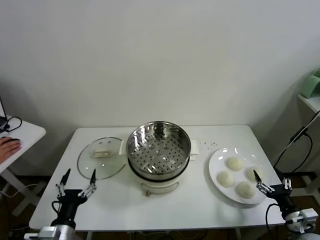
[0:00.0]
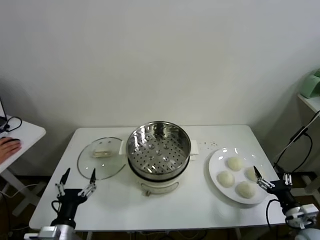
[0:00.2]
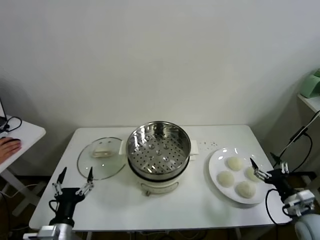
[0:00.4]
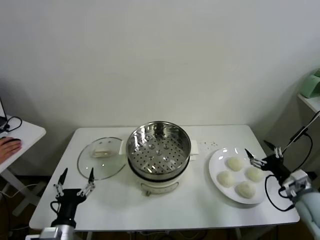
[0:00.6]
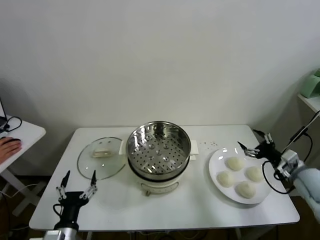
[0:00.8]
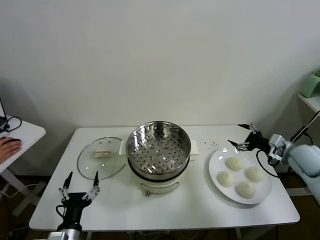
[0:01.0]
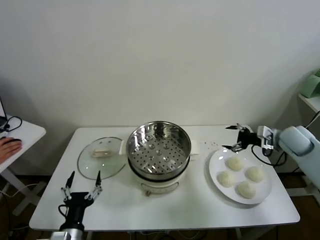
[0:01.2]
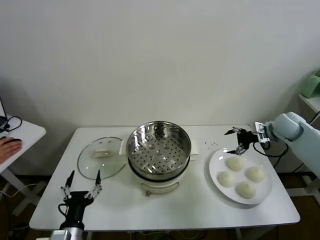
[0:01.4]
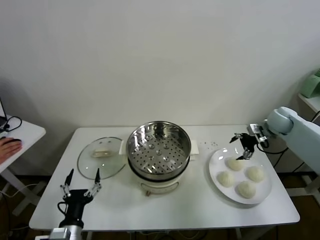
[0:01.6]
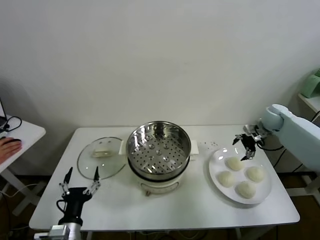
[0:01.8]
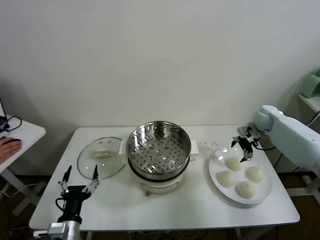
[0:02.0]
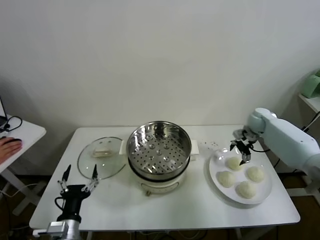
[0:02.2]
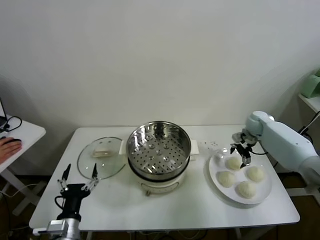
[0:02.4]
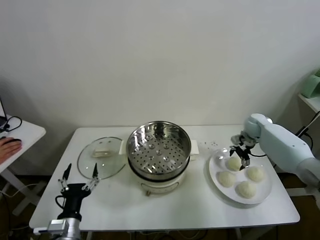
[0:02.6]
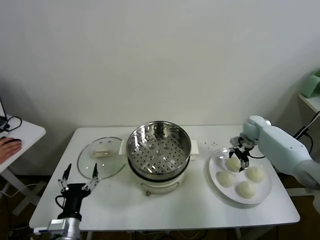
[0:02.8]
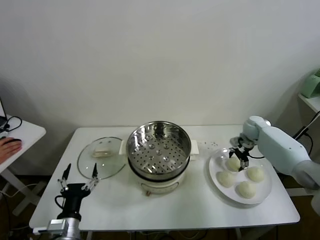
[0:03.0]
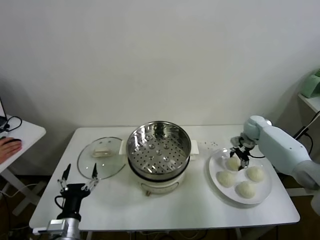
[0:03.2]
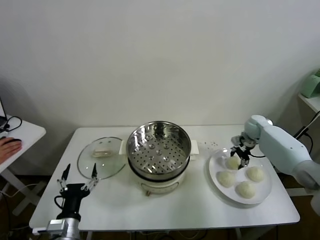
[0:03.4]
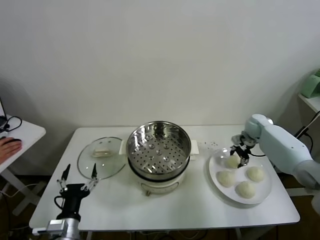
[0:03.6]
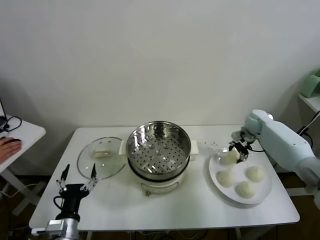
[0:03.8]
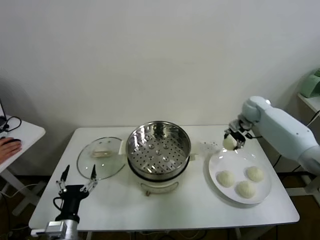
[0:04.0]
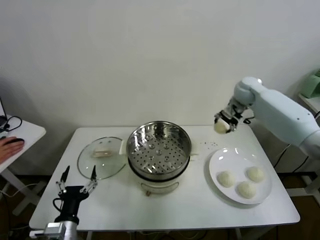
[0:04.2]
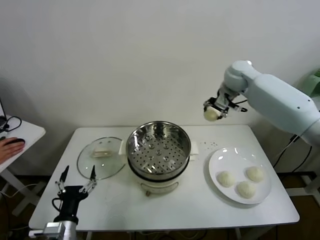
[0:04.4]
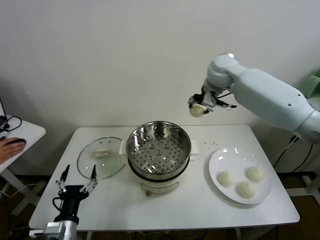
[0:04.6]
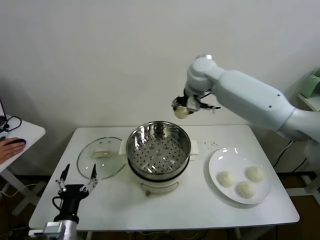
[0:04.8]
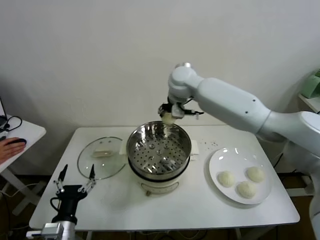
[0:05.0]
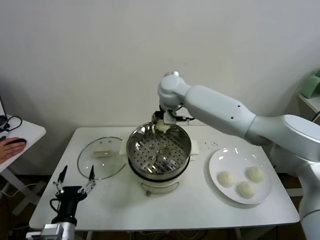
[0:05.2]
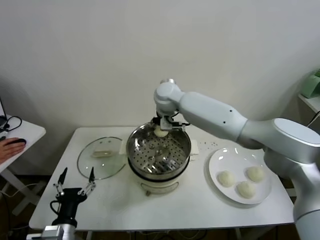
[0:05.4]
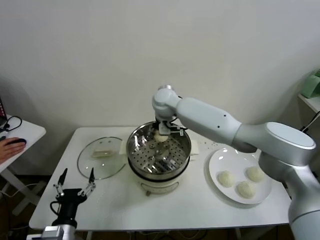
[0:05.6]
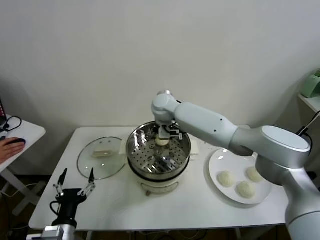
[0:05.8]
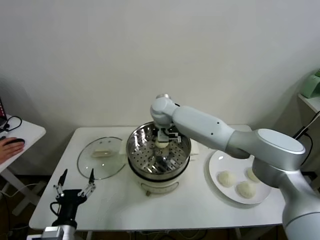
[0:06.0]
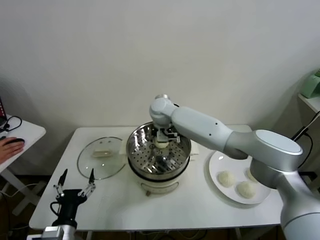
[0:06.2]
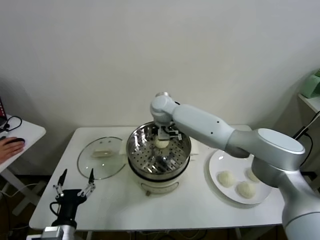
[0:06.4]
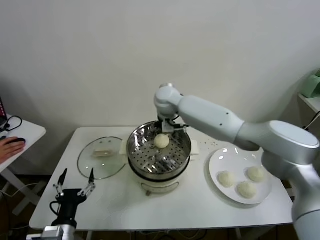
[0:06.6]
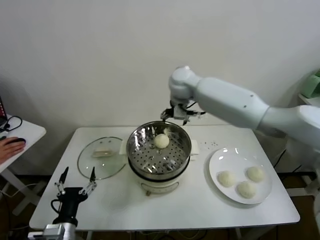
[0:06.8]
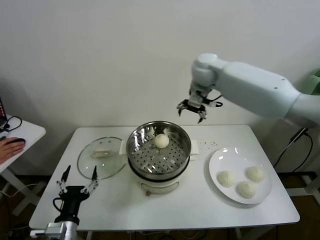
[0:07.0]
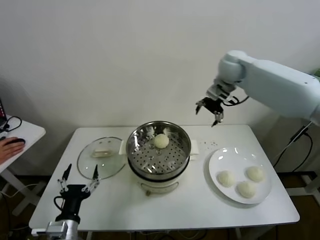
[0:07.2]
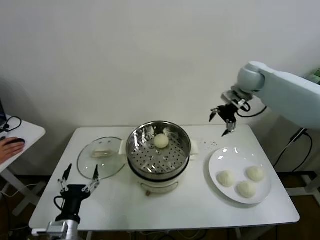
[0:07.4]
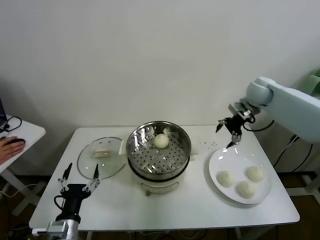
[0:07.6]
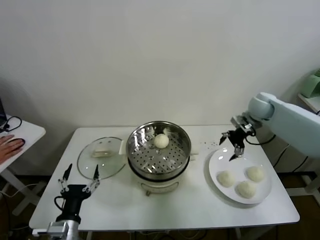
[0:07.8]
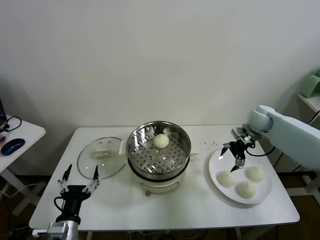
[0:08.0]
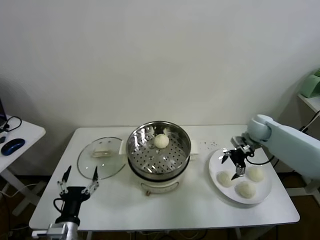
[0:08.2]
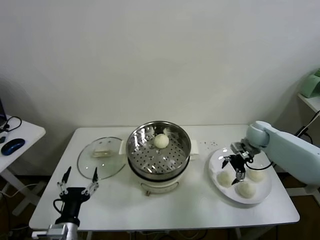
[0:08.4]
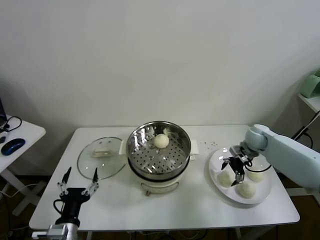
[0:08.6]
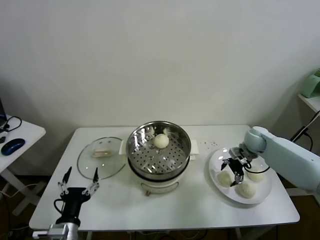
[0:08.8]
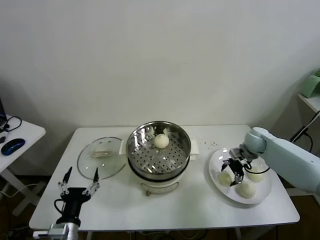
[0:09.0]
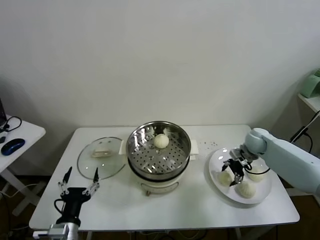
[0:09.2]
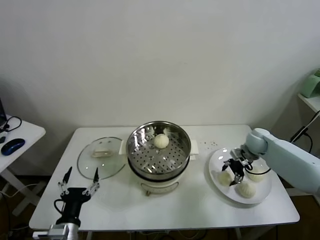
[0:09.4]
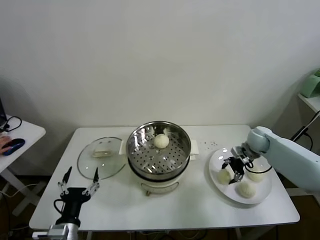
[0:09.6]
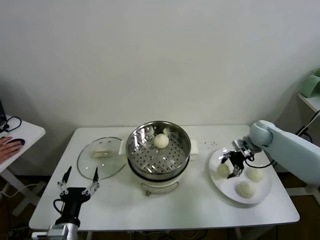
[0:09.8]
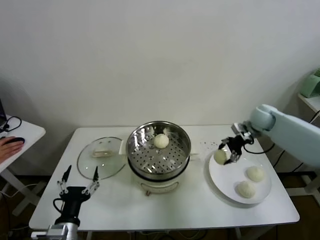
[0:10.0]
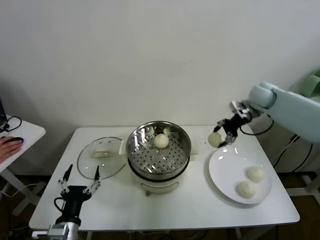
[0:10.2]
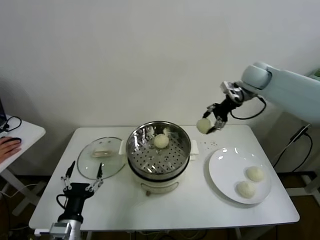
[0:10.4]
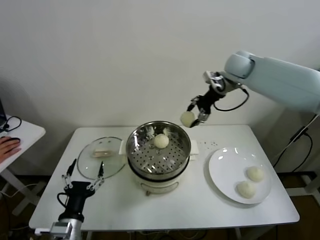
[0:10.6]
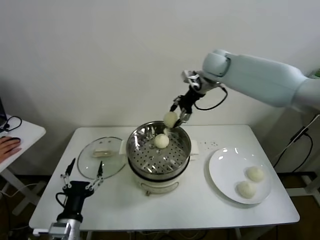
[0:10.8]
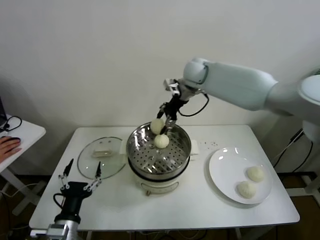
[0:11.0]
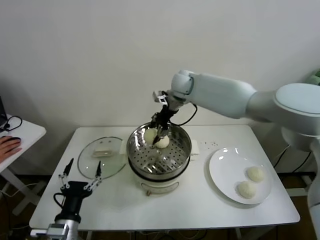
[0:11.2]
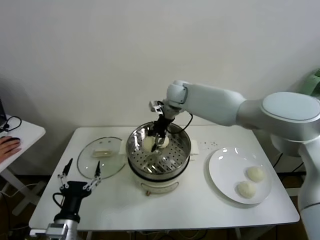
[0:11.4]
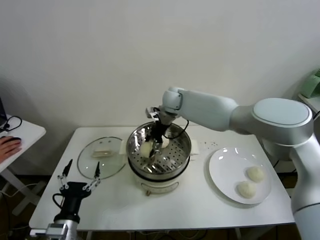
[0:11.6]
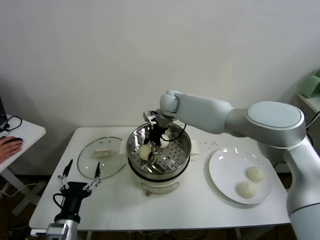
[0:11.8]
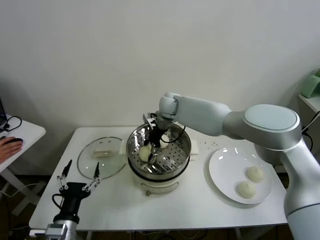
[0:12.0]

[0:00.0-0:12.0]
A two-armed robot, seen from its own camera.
Task of the whole recording: take steamed baozi put them in steamer.
Step, 0.0 to 3.0 s: Grasp the baozi in the plate with right gripper.
Step, 3.2 to 6.2 s: Place the baozi on the steamer with right gripper.
Step, 6.4 to 9.0 s: Grasp the baozi in the plate with right gripper.
1.6 to 3.0 s: The right gripper shifts about 10 cm downward.
3.0 to 4.4 s: The right gripper moves upward and to the left, approximately 30 cm.
4.4 to 6.0 s: The right gripper travels to the left and downward by approximately 25 cm.
6.0 to 7.6 s: The right gripper heads to the right, covering some 35 cm.
7.6 to 9.0 s: The right gripper shifts about 15 cm downward.
9.0 to 10.4 s: The right gripper goes some 25 cm upward.
10.4 to 12.0 s: The right gripper travels to the left and downward by about 30 cm.

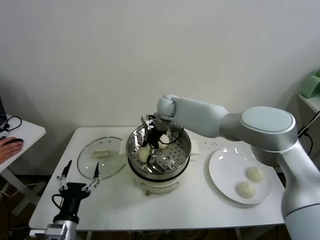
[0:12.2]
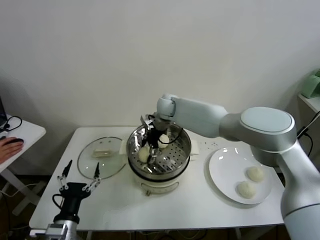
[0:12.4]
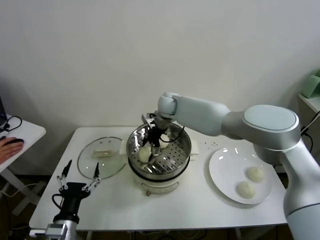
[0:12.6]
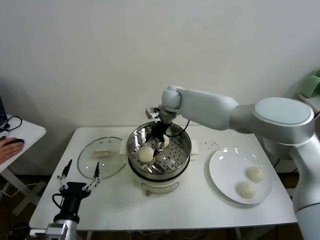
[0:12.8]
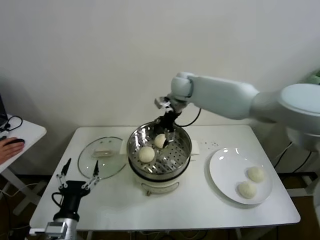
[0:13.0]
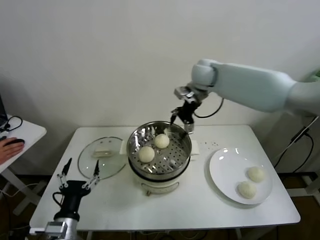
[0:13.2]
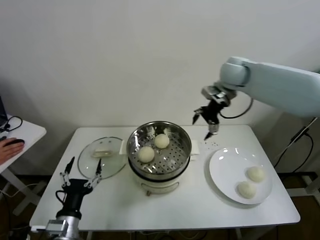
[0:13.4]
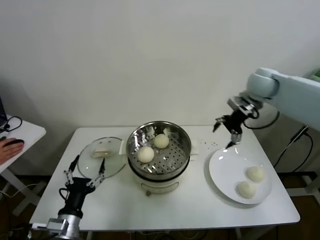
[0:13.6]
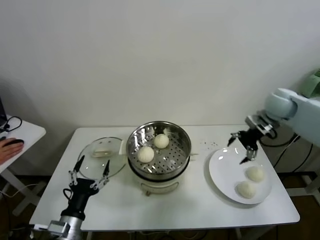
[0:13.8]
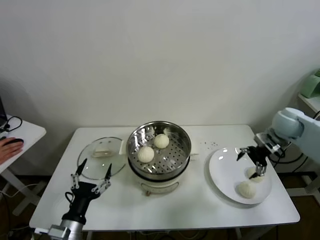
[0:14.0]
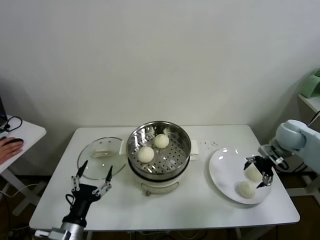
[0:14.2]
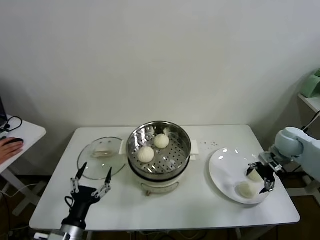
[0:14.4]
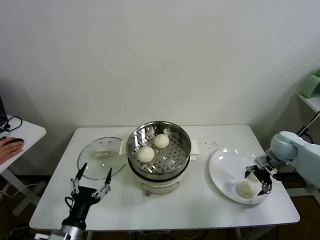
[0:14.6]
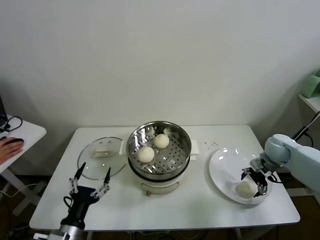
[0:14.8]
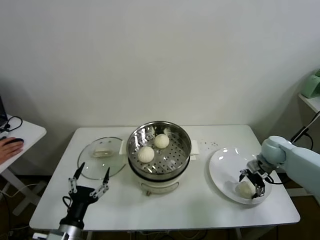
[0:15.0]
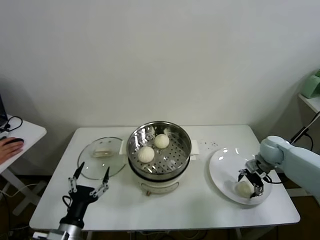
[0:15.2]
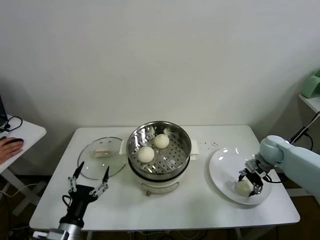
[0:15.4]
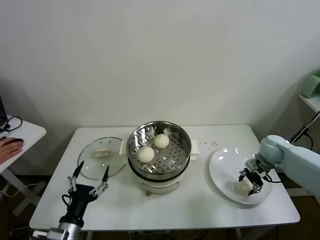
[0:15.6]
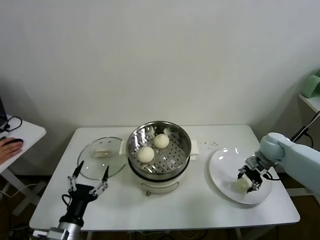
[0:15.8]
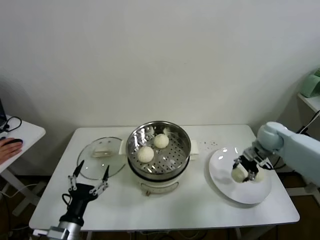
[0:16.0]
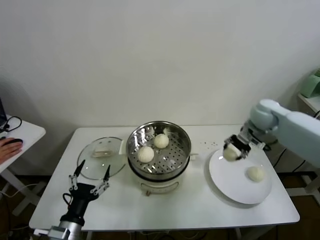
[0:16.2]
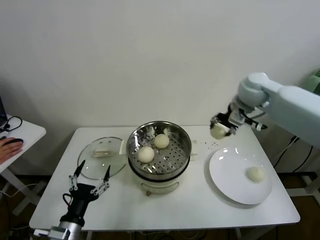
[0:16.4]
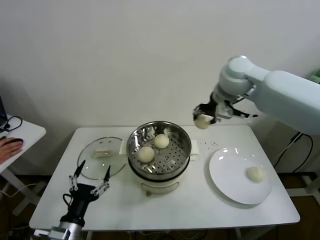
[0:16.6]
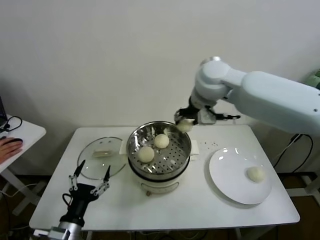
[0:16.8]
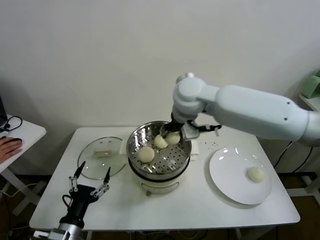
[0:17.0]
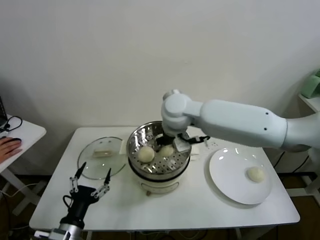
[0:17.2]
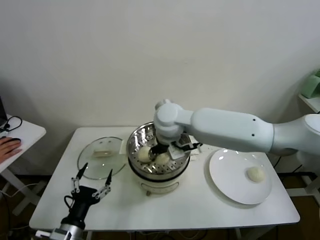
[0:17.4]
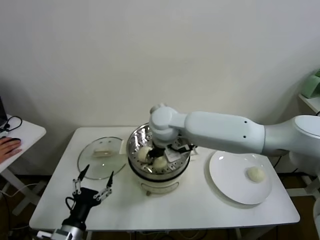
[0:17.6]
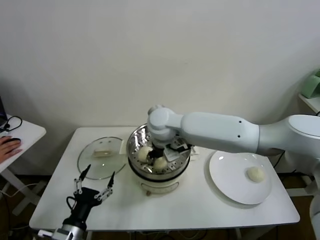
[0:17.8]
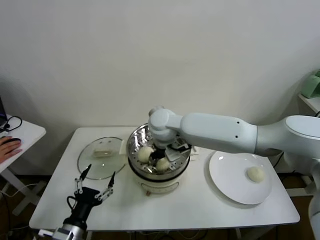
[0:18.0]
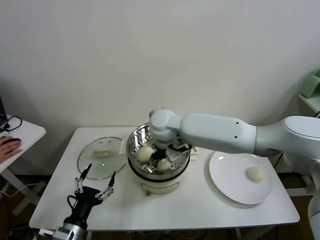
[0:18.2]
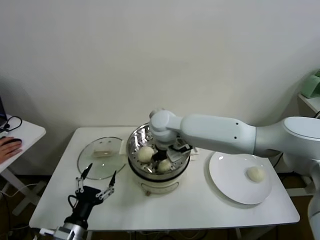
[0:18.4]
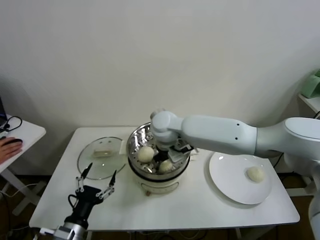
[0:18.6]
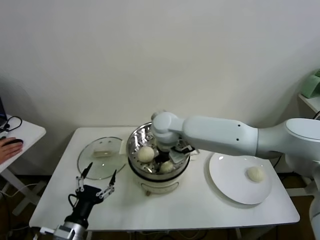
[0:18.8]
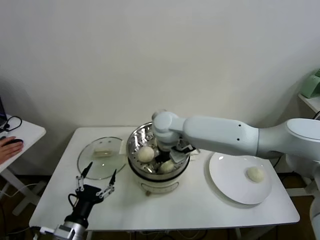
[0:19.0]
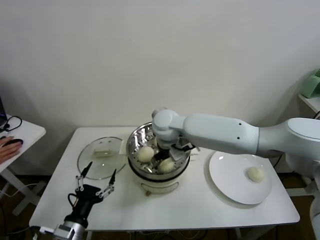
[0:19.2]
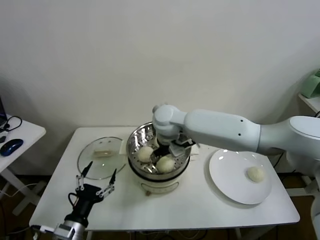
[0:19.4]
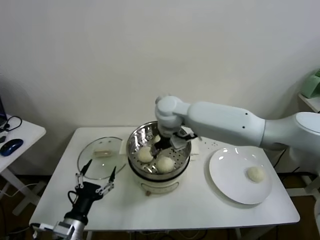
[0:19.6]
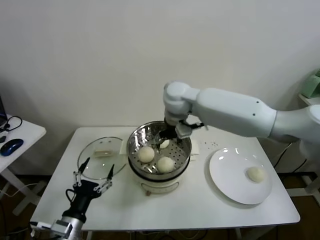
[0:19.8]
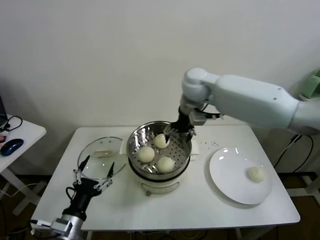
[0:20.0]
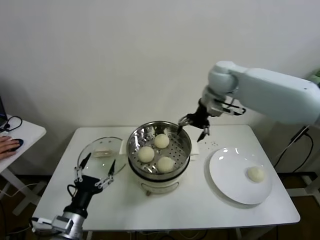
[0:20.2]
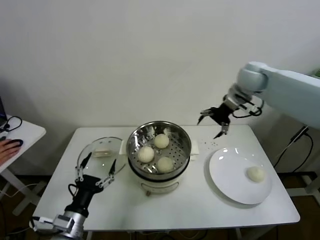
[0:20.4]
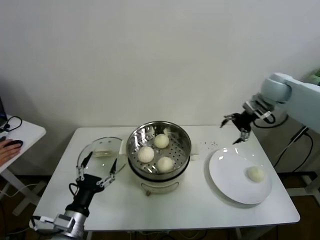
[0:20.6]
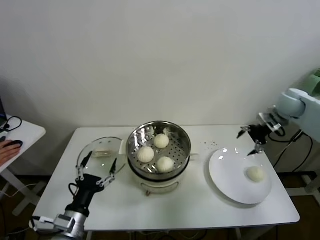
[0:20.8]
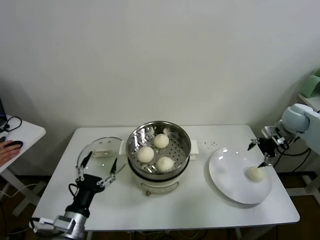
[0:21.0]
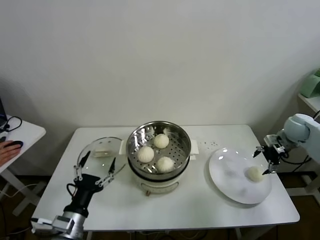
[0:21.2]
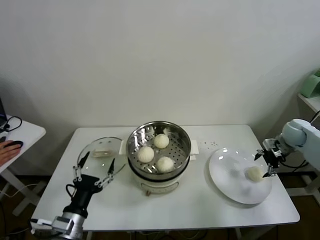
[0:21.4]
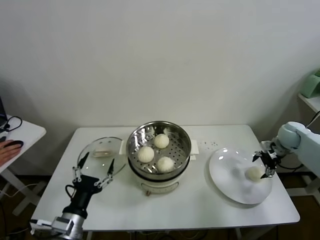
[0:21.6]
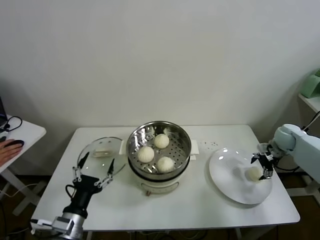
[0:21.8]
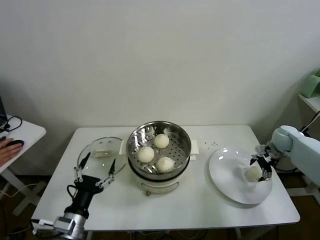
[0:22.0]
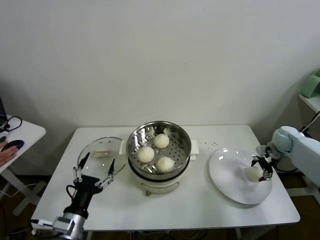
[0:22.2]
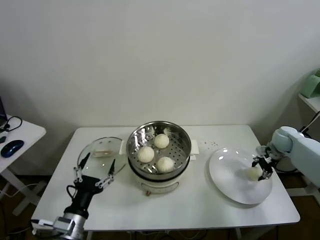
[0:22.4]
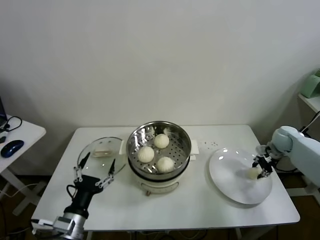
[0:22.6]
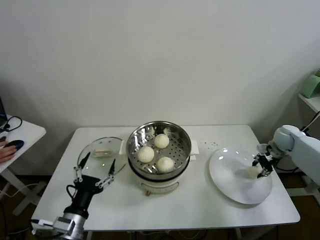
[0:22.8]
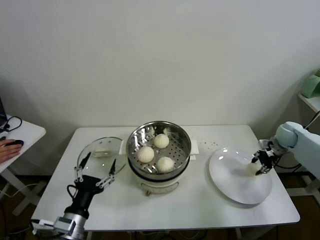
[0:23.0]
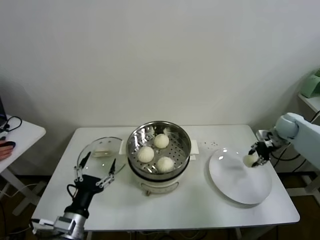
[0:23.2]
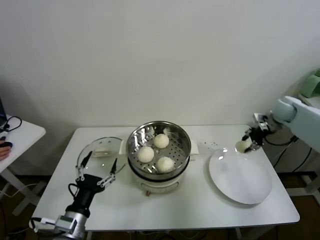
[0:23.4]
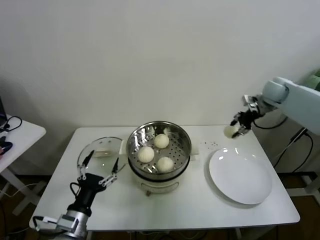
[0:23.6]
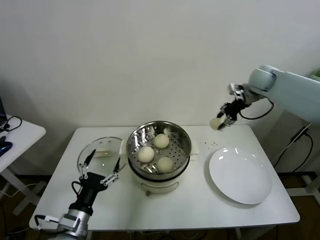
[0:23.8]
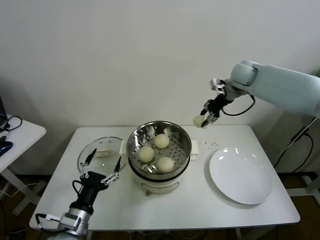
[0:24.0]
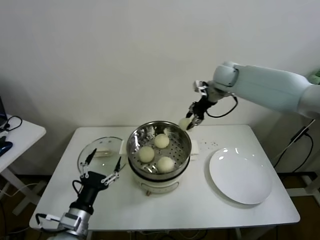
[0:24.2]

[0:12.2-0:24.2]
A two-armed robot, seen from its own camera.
Task of the whole recording: take steamed baozi put them in steamer.
Step, 12.6 to 15.2 s: Grasp the baozi in the plate with right gripper.
Step, 15.6 to 19.0 s: Place the baozi on the steamer with right gripper.
Step, 19.2 to 22.2 s: Grasp the baozi in the plate with right gripper.
12.2 to 13.8 s: The right gripper travels to the right by some 35 cm.
13.8 to 15.2 s: The right gripper goes roughly 15 cm downward.
15.2 to 16.6 s: The right gripper travels upward and to the left by some 35 cm, and closes its fingers.
16.6 to 18.2 s: The right gripper heads to the left and downward, covering some 25 cm.
18.2 to 19.8 s: The right gripper moves upward, about 5 cm, and opens its fingers.
19.8 to 21.2 s: The right gripper shifts roughly 40 cm to the right.
21.2 to 22.6 s: The right gripper shifts about 10 cm downward, and closes.
22.6 to 24.2 s: The right gripper shifts about 35 cm to the left and upward.
